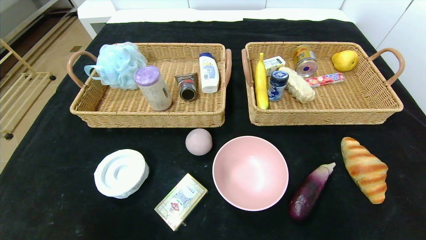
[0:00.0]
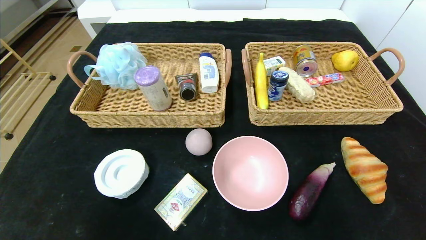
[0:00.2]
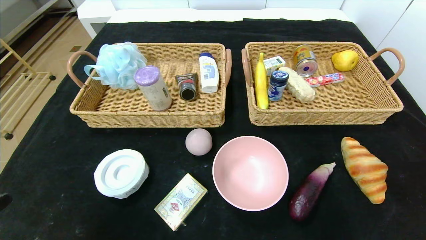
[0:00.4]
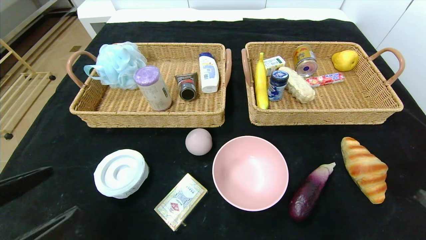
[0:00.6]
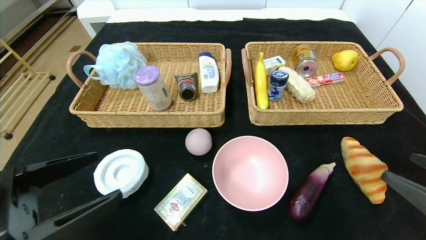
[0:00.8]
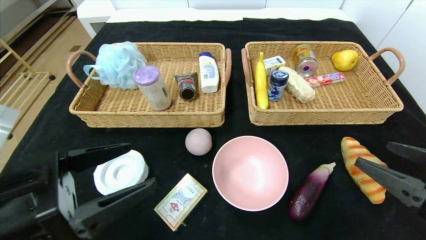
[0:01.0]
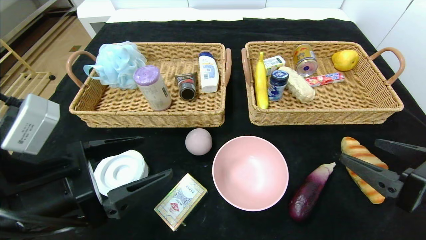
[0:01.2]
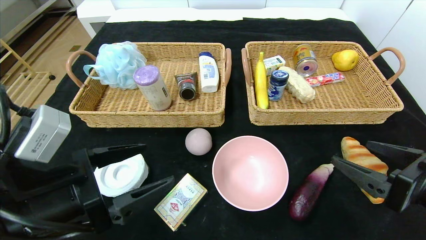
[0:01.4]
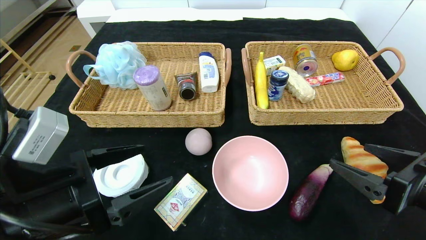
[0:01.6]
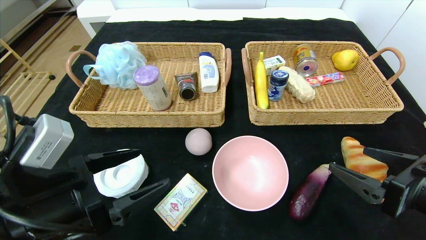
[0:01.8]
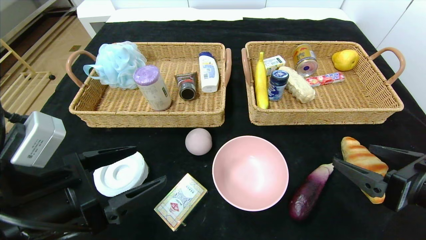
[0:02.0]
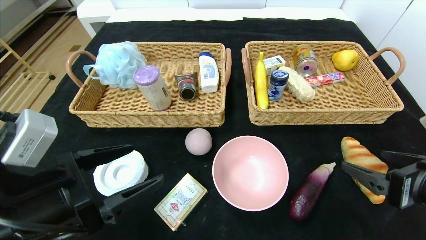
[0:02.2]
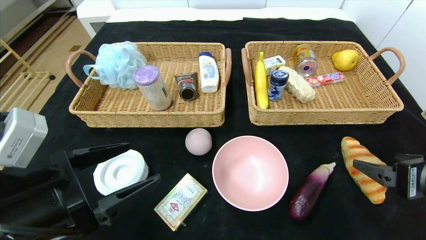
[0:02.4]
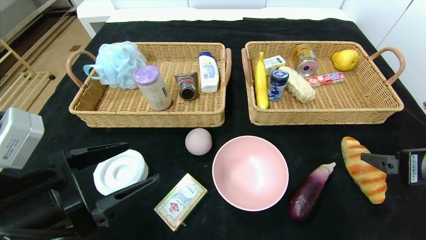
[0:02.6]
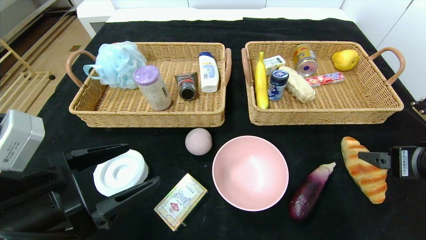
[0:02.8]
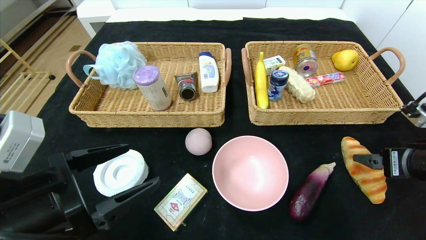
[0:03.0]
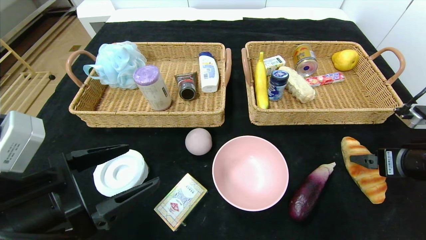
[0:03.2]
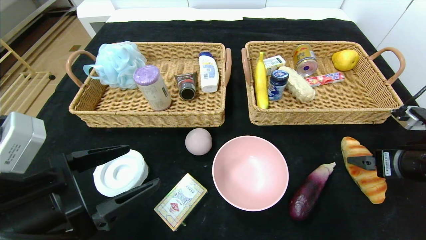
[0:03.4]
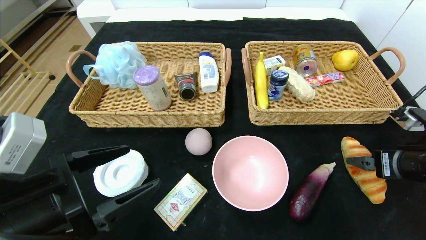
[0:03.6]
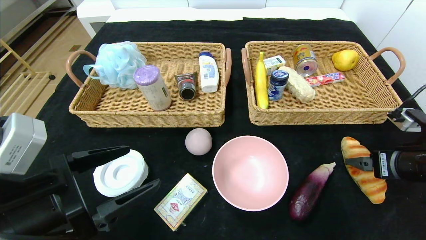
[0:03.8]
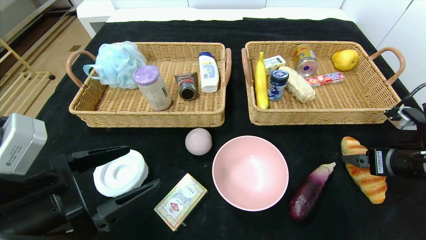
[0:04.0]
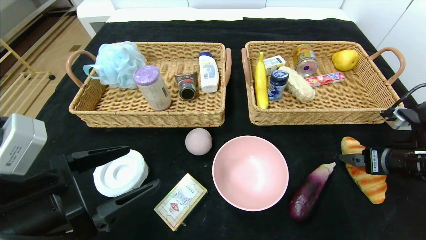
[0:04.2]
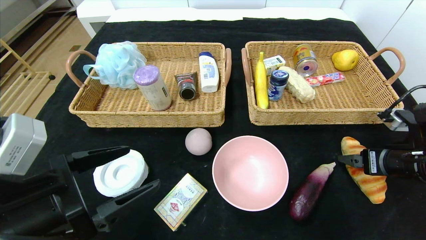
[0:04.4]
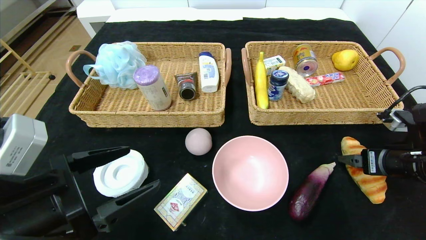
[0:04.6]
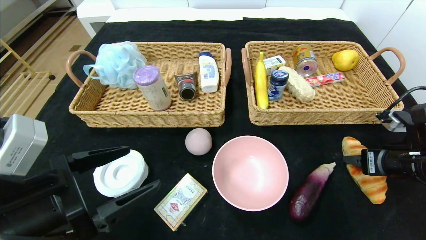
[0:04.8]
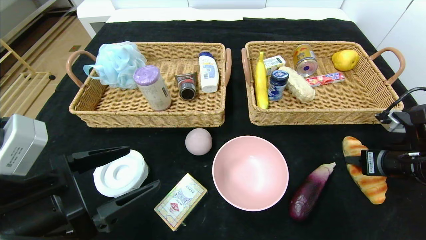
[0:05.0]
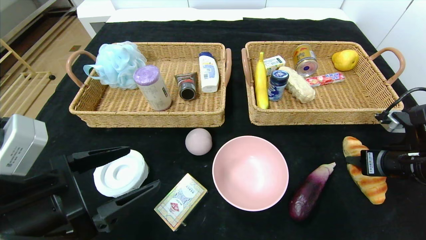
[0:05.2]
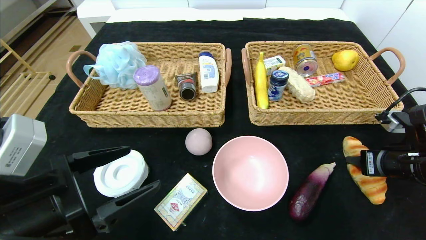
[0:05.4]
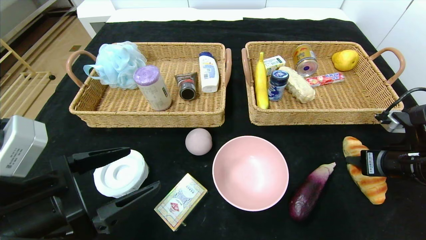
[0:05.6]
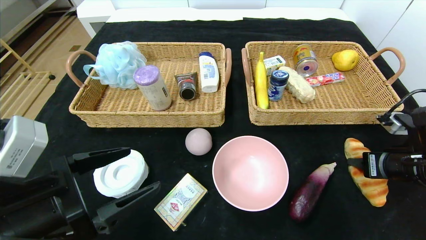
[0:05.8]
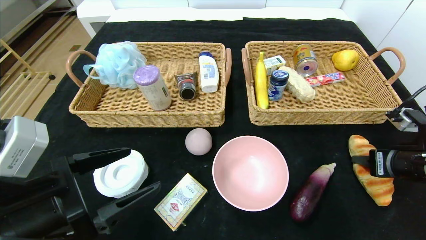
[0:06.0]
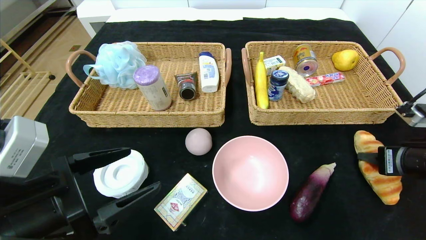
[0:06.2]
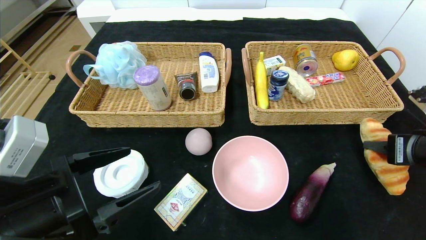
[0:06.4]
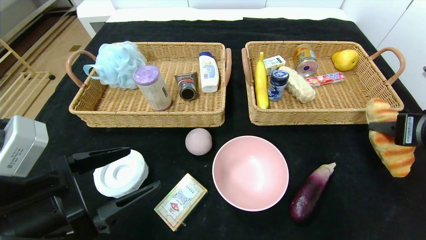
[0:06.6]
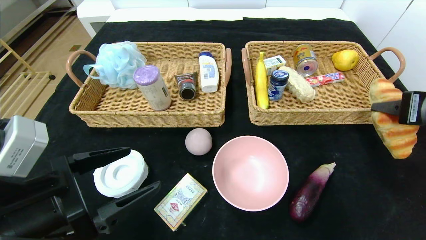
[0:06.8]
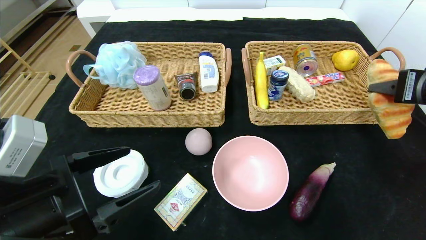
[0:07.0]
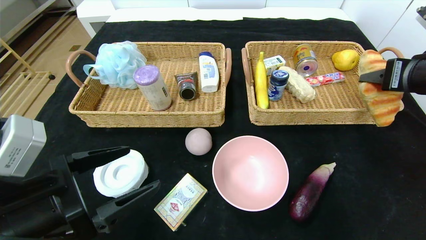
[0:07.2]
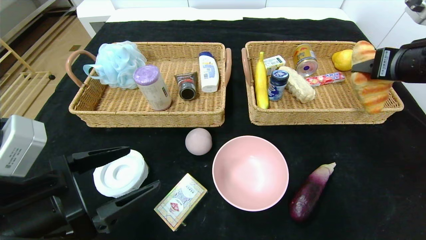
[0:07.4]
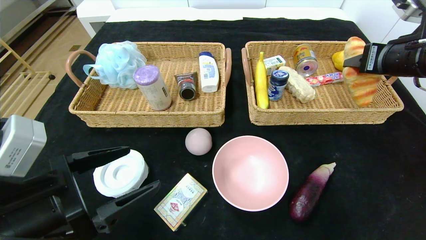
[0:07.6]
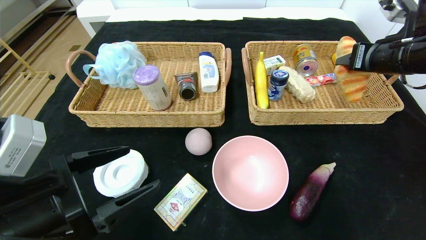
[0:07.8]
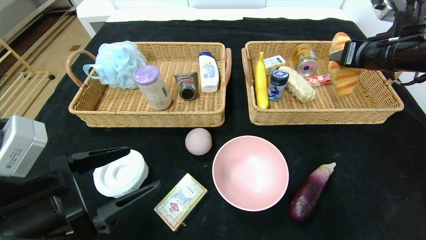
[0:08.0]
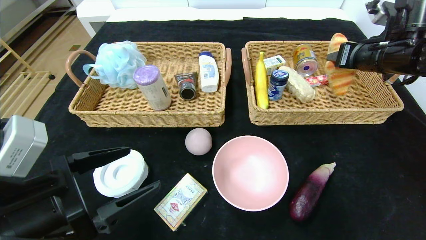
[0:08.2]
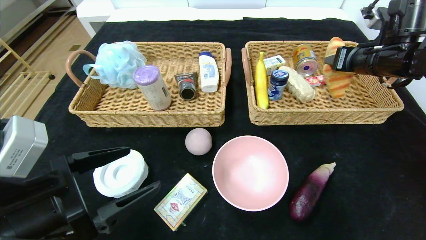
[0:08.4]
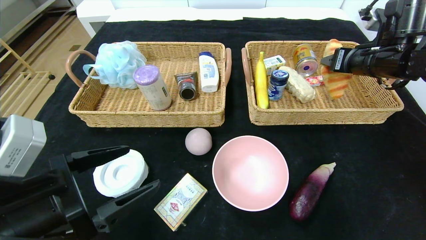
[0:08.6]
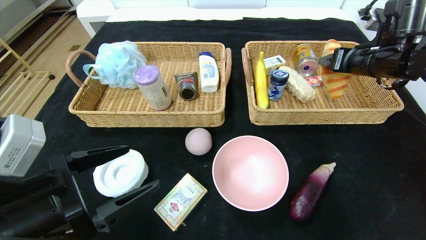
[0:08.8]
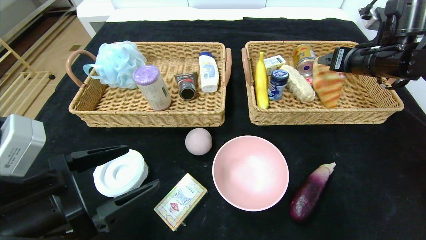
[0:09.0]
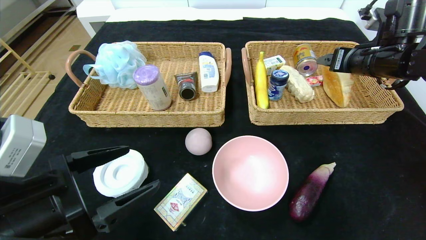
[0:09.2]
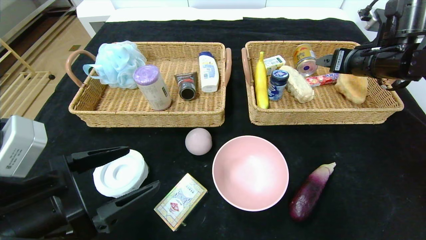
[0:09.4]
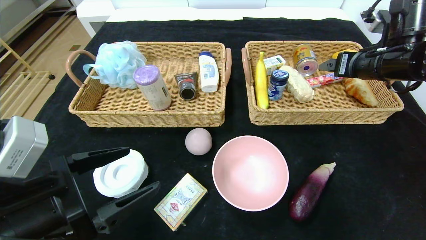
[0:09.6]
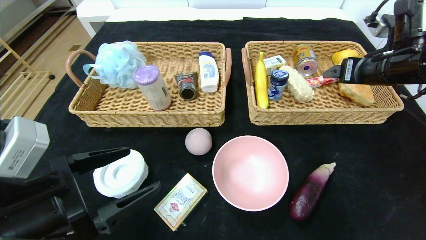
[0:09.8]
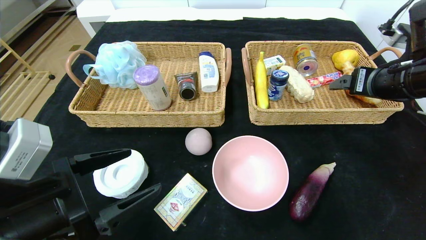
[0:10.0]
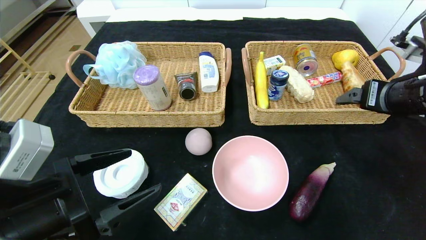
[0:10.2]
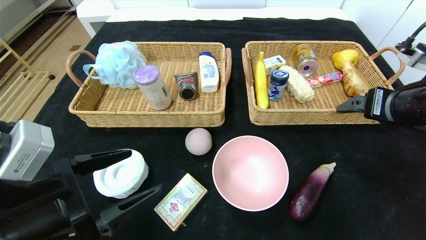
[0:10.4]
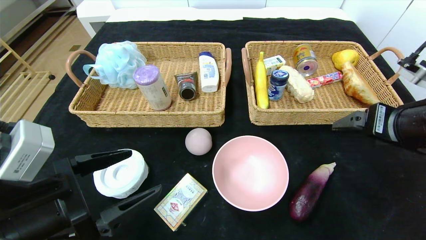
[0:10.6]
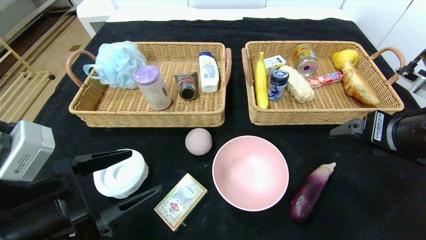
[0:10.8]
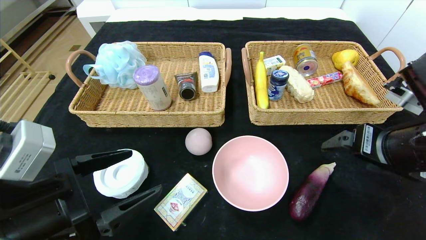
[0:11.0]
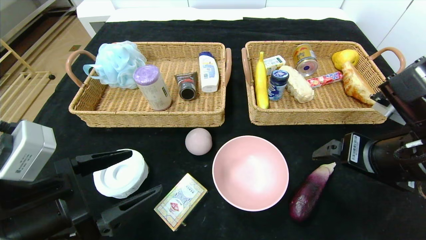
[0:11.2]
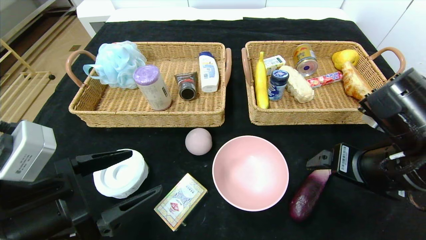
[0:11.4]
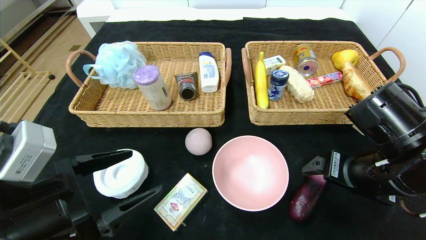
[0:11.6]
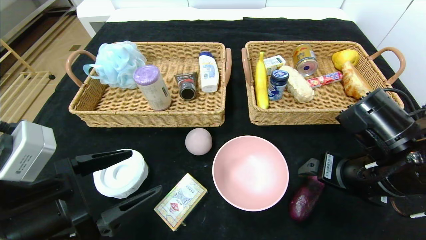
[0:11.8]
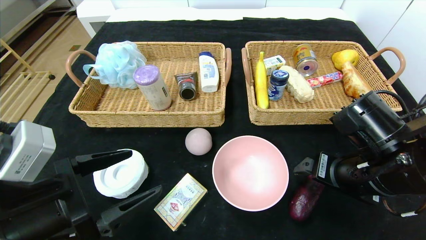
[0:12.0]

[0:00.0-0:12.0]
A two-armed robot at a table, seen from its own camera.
Step, 0:00.0 to 0:09.0: Grasp the croissant and put it in the right basket.
0:00.0 to 0:01.6: The right gripper moves forward, to the left and upward, approximately 20 cm; the left gripper is displaced forward, to the right and upward by some 20 cm.
0:01.6 to 0:03.0: The right gripper travels forward by approximately 5 cm.
0:03.0 to 0:04.4: The grippers make only small movements.
0:04.4 to 0:06.0: The right gripper closes.
0:06.0 to 0:07.6: The right gripper is displaced upward and forward by about 15 cm.
0:07.6 to 0:09.0: The right gripper travels forward by roughly 5 cm, and opens its fingers.
0:09.0 to 0:10.4: The right gripper travels backward by about 15 cm.
0:10.4 to 0:12.0: The right gripper moves downward and to the left, about 10 cm.

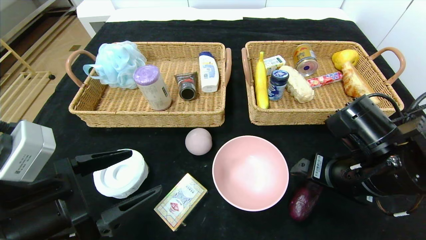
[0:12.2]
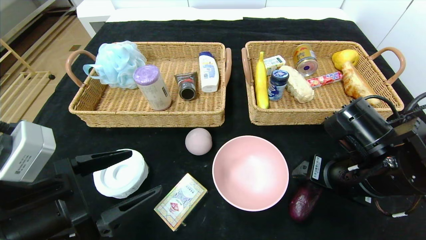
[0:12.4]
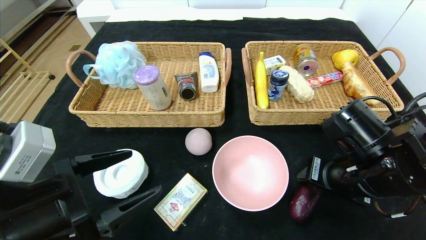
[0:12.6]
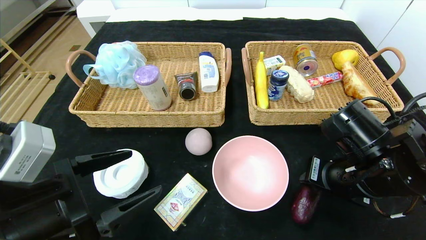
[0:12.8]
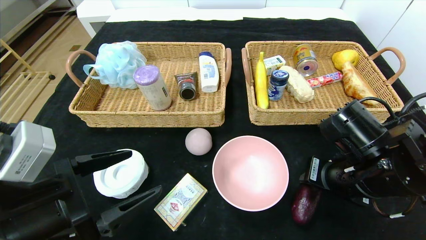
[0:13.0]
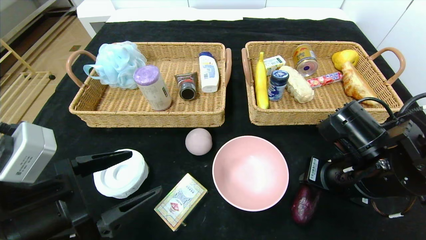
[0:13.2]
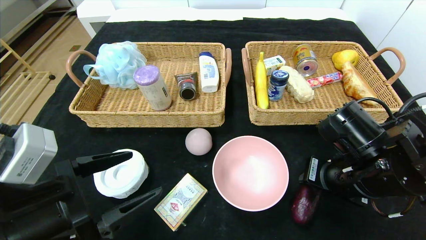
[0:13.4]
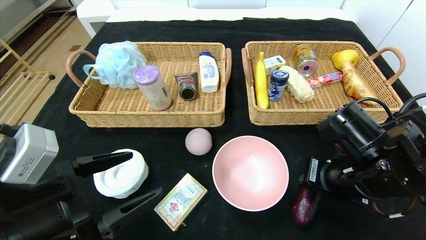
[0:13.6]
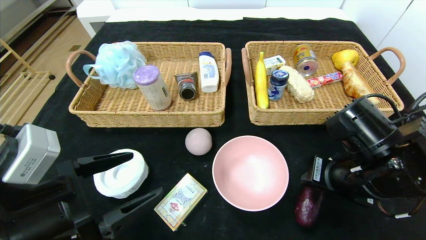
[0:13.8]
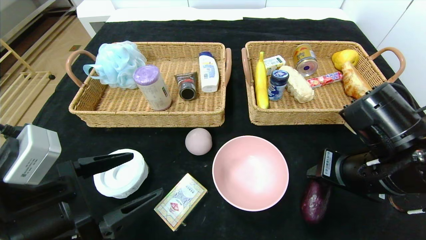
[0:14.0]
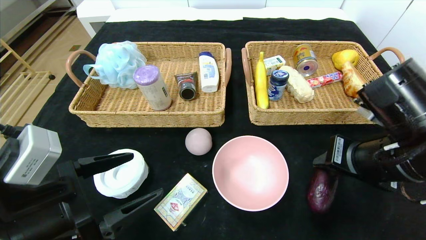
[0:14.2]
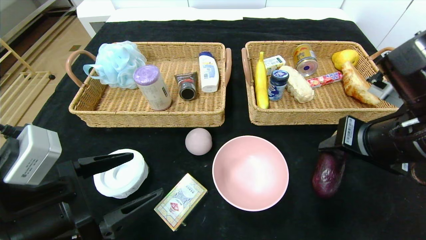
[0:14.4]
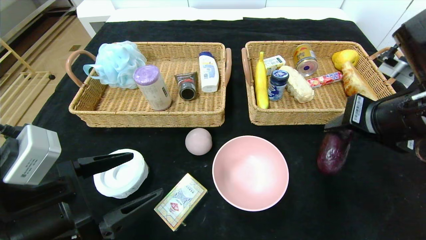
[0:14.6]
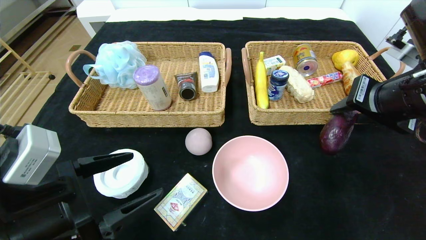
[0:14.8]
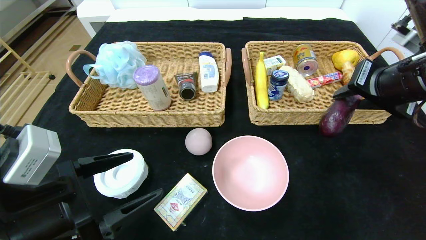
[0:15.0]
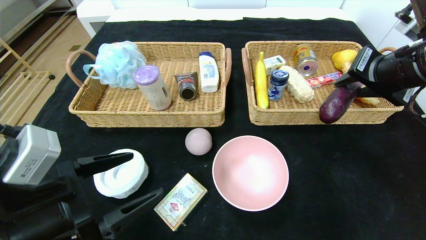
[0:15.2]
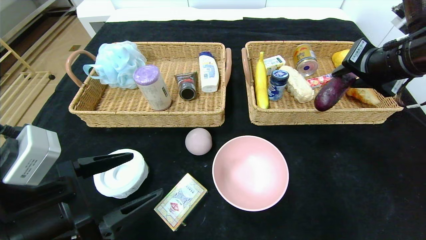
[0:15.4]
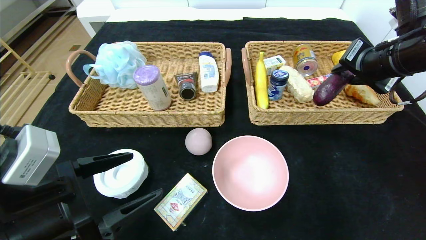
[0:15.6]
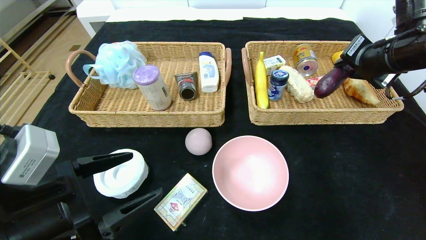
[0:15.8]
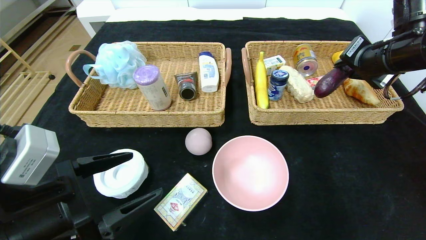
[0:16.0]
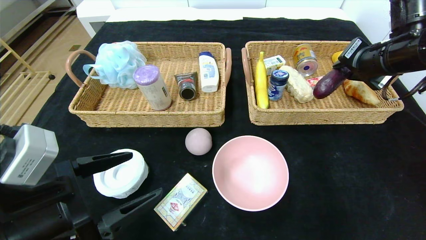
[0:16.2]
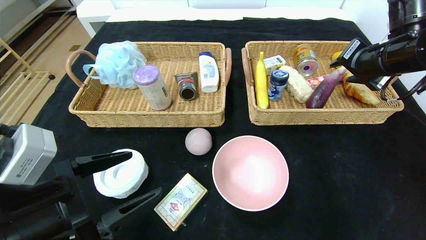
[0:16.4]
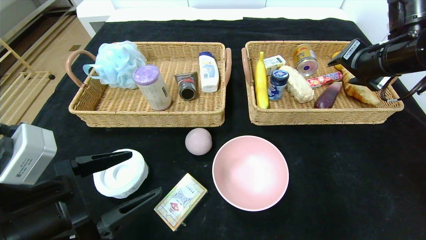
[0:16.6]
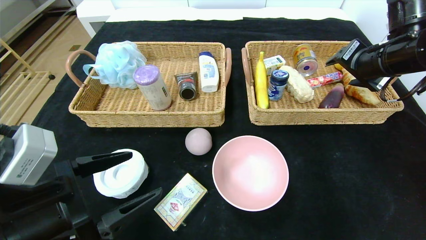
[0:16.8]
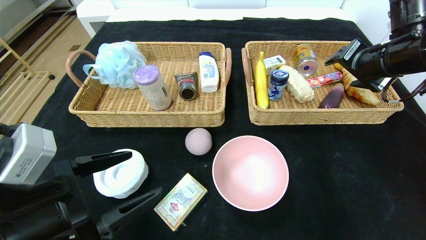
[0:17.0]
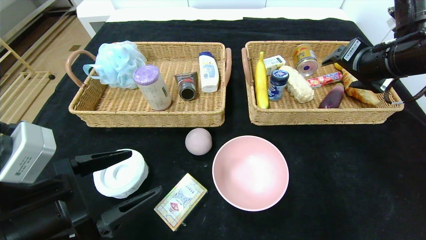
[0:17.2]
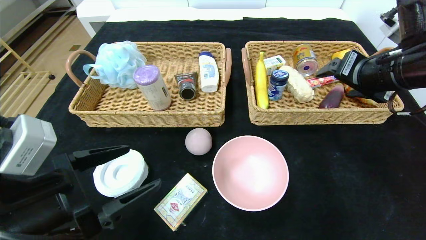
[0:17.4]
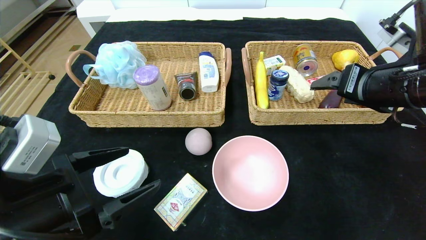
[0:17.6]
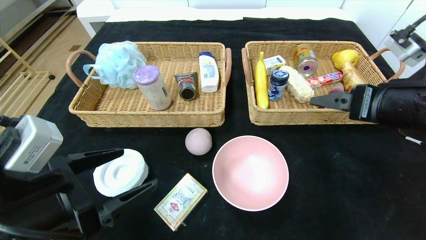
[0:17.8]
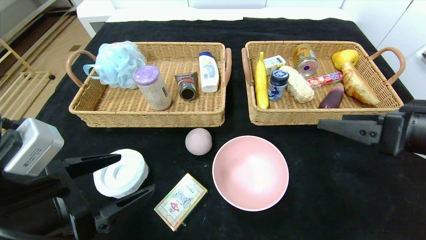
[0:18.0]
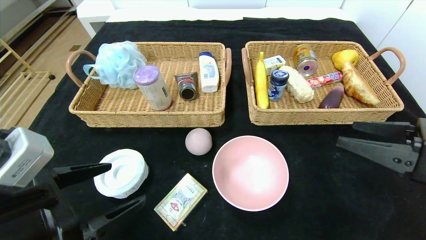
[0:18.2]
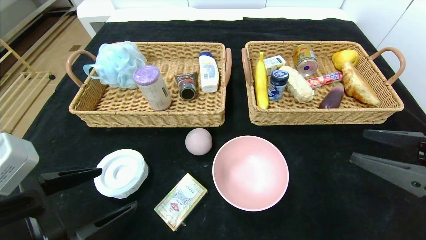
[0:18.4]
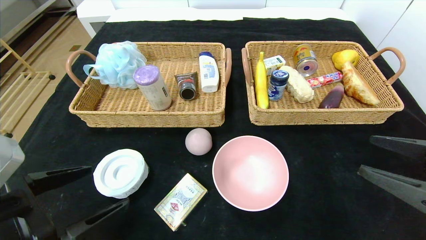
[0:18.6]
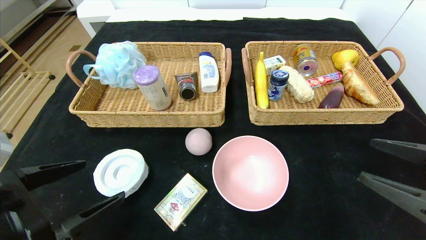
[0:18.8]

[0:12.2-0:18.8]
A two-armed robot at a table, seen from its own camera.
Step, 0:12.2 to 0:16.6: Grasp the eggplant and put it in the right basket.
0:12.2 to 0:13.8: The right gripper closes its fingers.
0:13.8 to 0:15.4: The right gripper moves upward, forward and to the right, roughly 15 cm.
0:15.4 to 0:17.2: The right gripper opens up.
0:17.2 to 0:18.8: The right gripper goes about 20 cm backward and downward.
